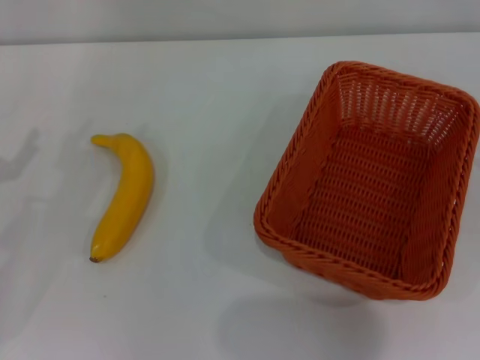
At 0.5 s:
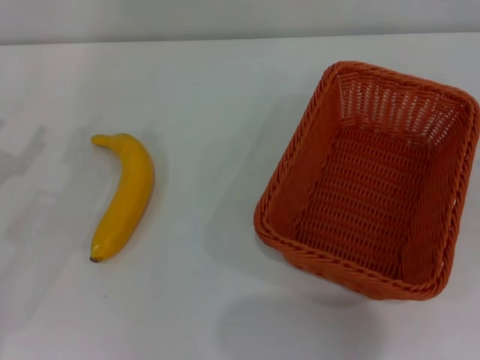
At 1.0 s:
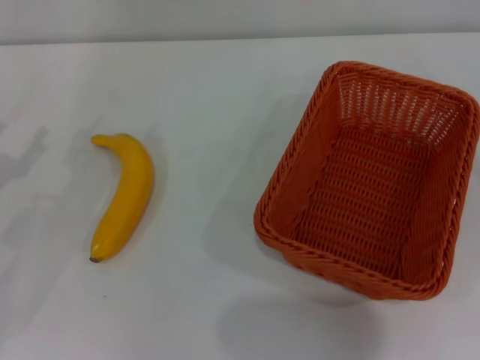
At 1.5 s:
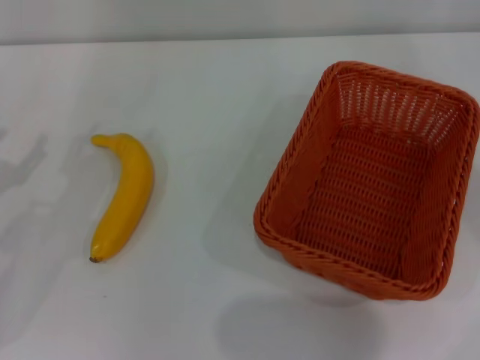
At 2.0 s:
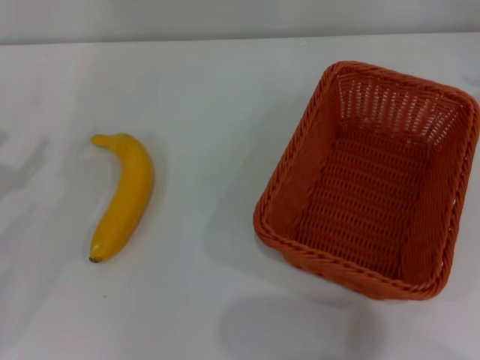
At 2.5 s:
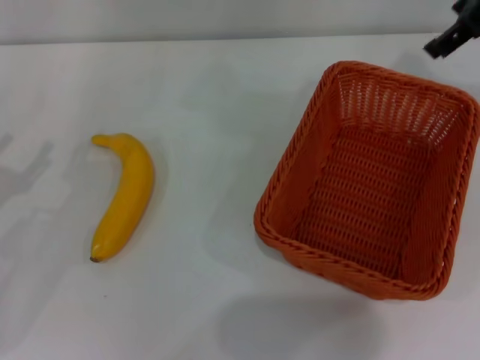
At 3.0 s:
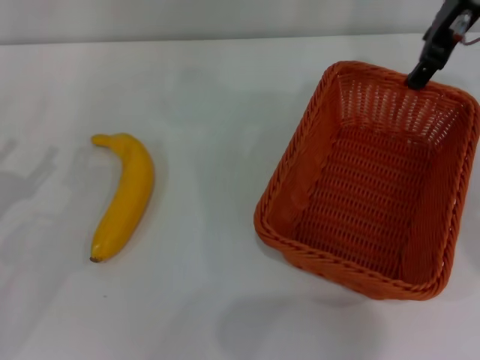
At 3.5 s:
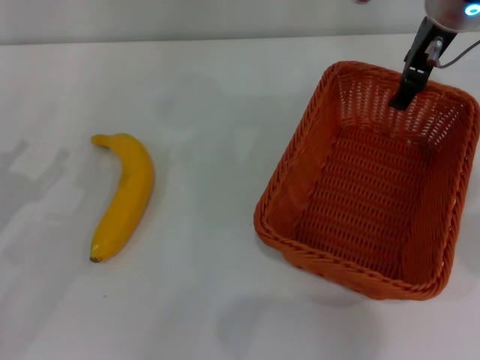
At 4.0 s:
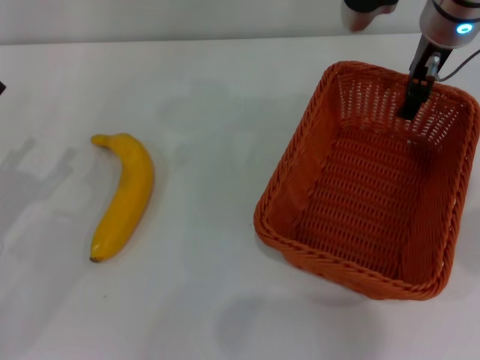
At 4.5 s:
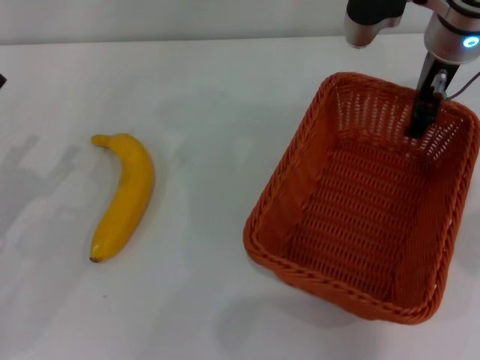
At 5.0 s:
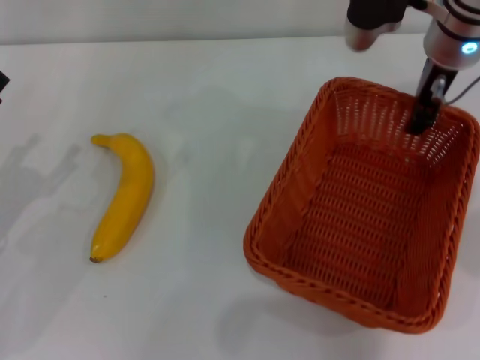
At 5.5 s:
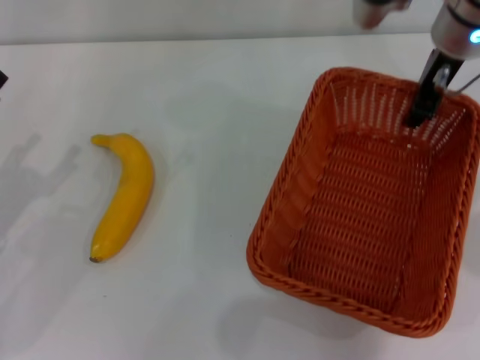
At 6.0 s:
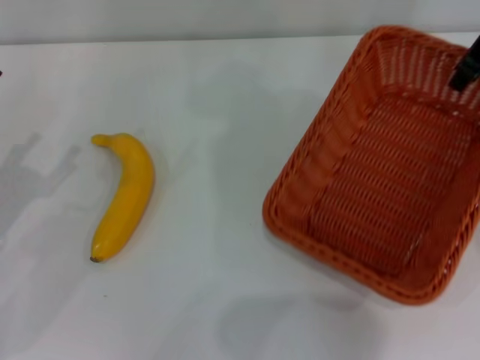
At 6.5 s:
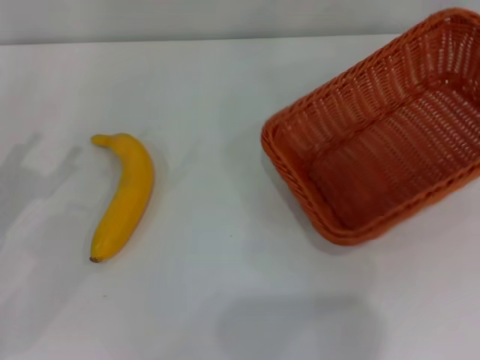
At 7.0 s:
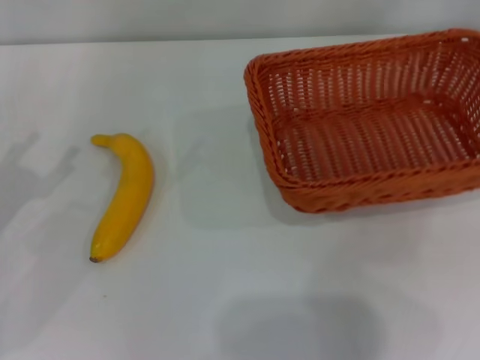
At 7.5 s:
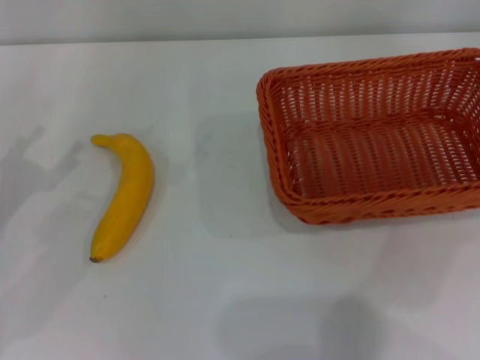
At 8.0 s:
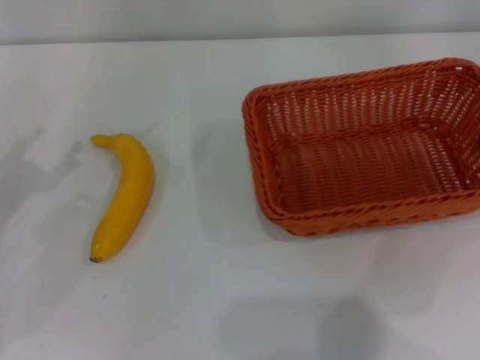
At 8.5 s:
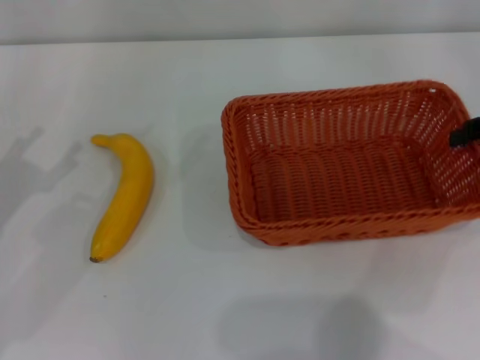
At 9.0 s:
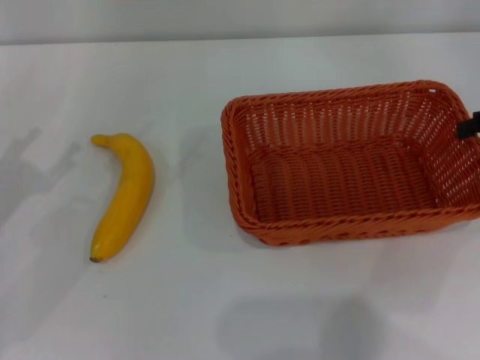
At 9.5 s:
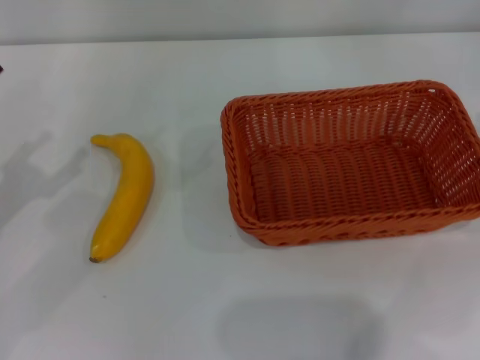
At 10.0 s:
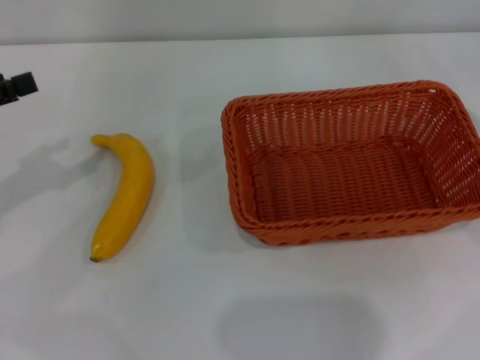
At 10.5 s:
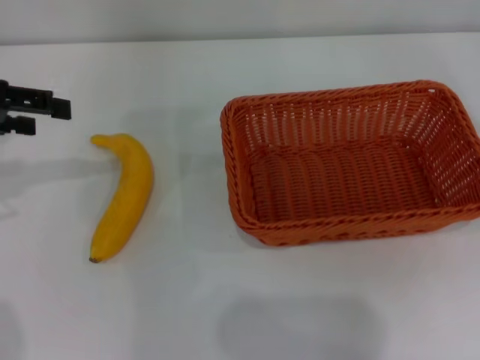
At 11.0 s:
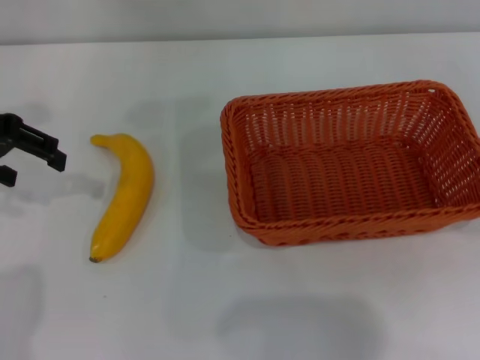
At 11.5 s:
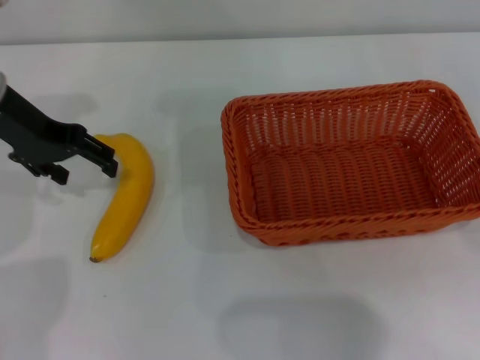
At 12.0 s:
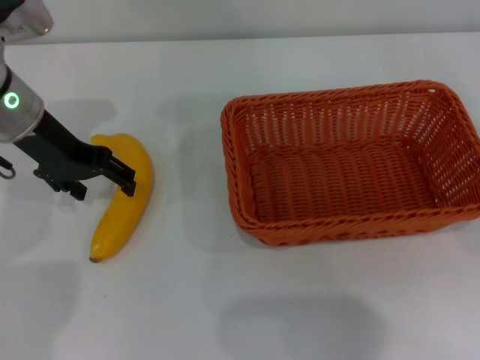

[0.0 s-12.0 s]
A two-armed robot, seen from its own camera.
Step, 0.0 to 6.0 s: Pick up the light basket with the right gripper.
Step, 6.5 to 9.5 s: Place the light basket in the center of view with the right gripper.
2.0 to 4.0 s: The right gripper travels to the left, forward and downward by approximately 25 cm.
4.0 to 6.0 s: The right gripper moves to the right, some 5 cm, and closes up.
6.0 to 8.0 s: The right gripper moves to the right, backward and downward, approximately 20 cm.
8.0 to 10.0 s: The right gripper goes roughly 5 cm to the right, and opens. The left gripper moves upward, about 5 cm.
10.0 to 12.0 s: The left gripper moves to the right and forward, approximately 15 cm.

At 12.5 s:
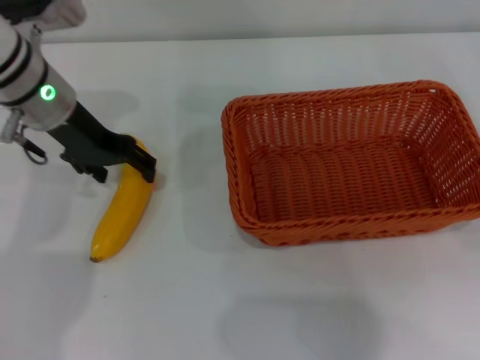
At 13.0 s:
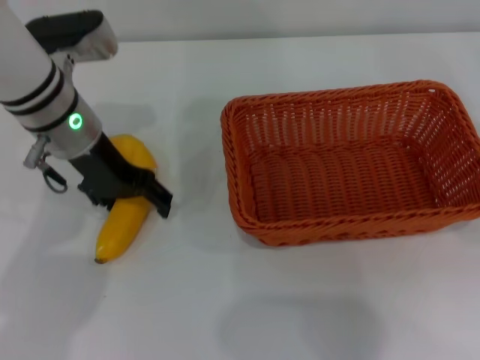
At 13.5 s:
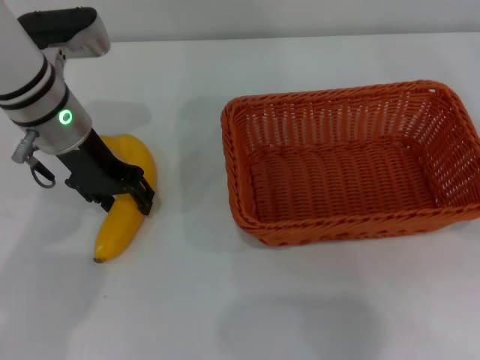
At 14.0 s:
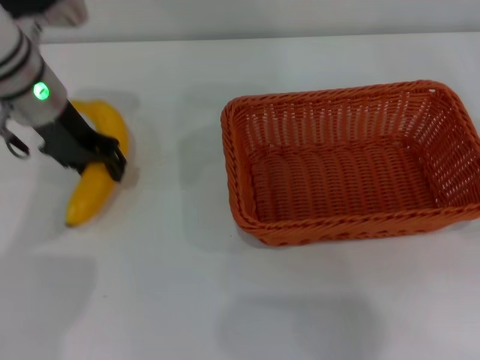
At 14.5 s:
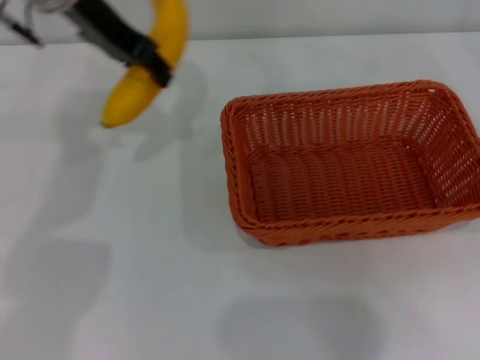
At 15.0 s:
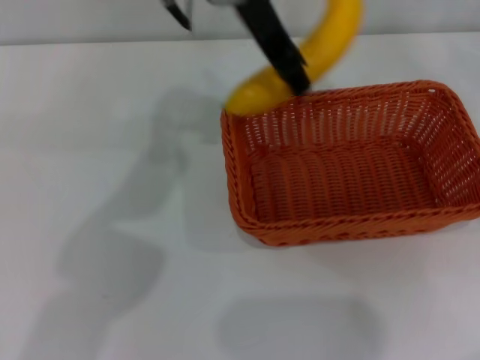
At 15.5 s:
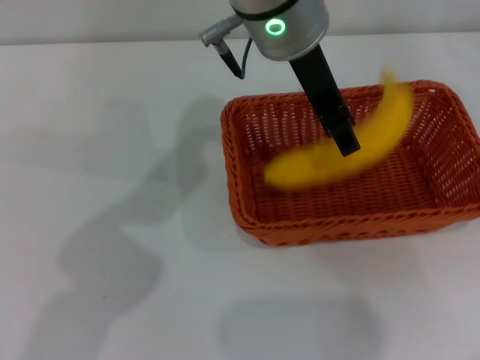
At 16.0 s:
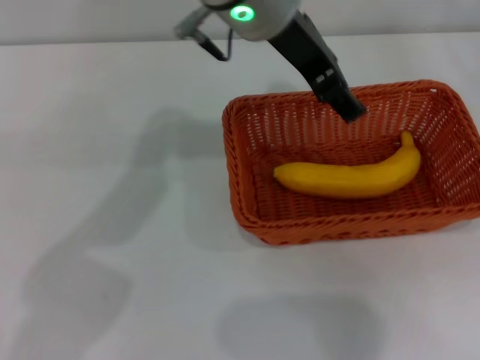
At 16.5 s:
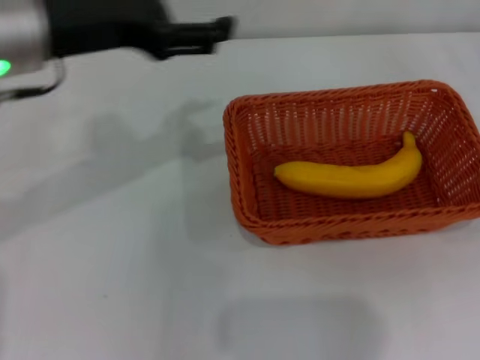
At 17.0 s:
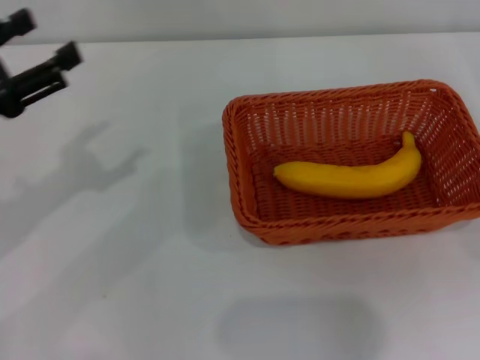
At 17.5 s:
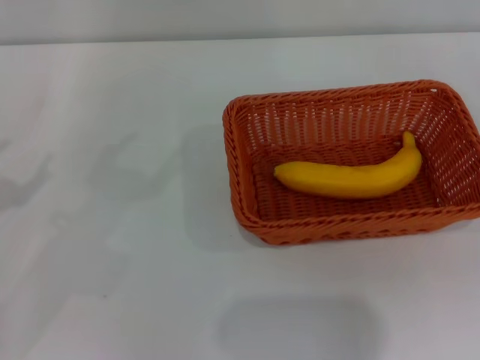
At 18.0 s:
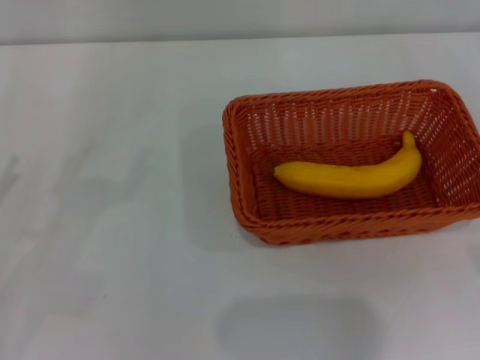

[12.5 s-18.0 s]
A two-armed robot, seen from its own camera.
Step, 14.5 to 16.0 s: Place the banana into the light basket with the left gripper.
12.5 to 14.5 s: The left gripper goes roughly 10 cm upward, and closes.
14.5 to 16.0 s: The left gripper heads to the right, covering some 15 cm, and opens up.
16.0 to 18.0 s: The left gripper heads to the left, downward and backward, covering about 40 cm, while the right gripper goes approximately 5 cm downward.

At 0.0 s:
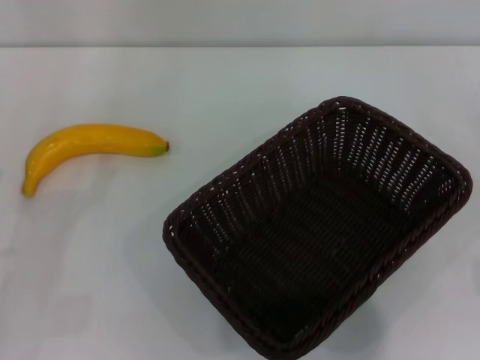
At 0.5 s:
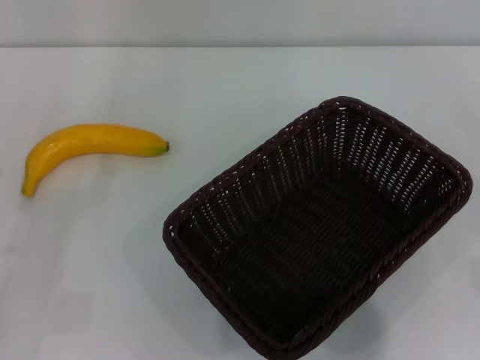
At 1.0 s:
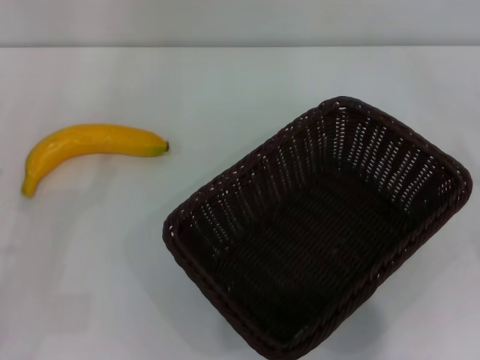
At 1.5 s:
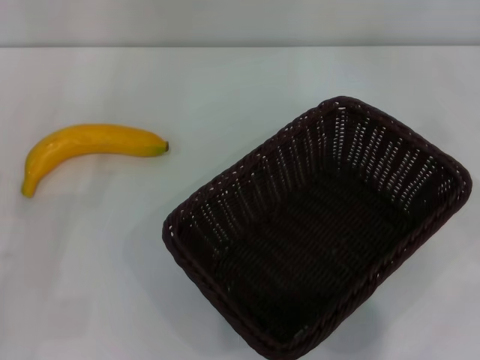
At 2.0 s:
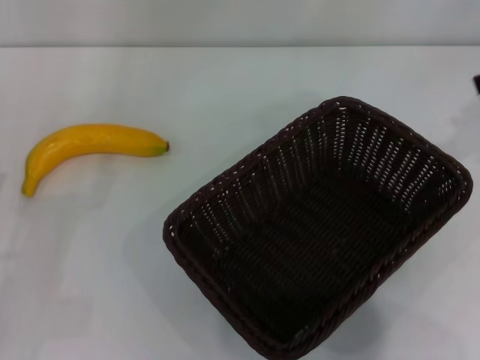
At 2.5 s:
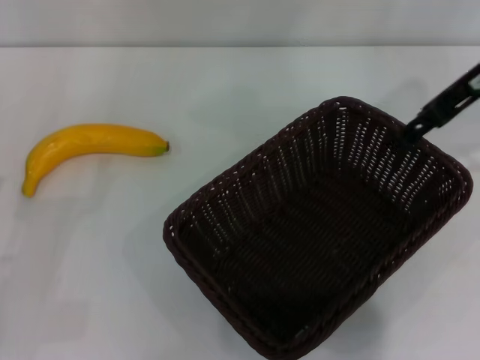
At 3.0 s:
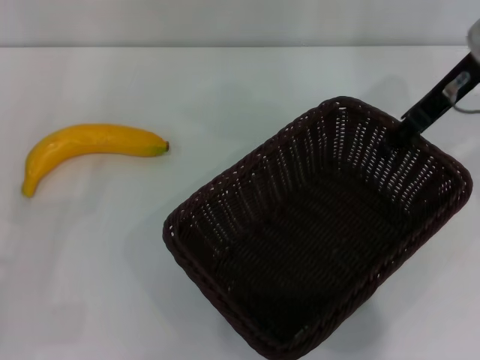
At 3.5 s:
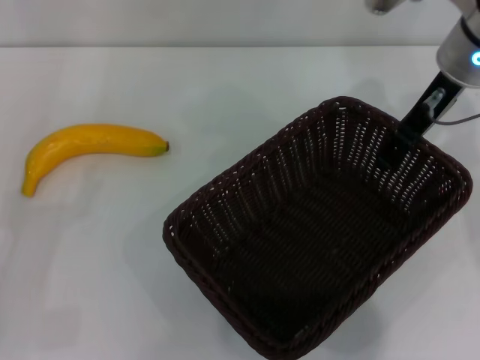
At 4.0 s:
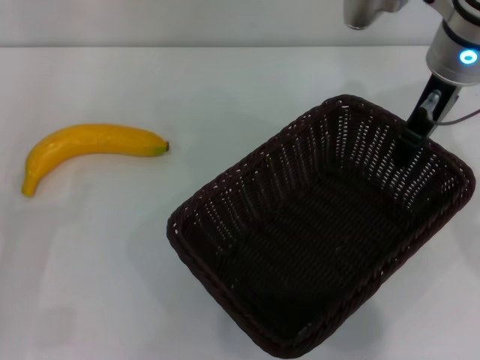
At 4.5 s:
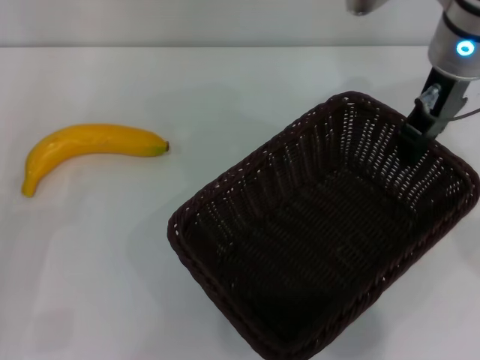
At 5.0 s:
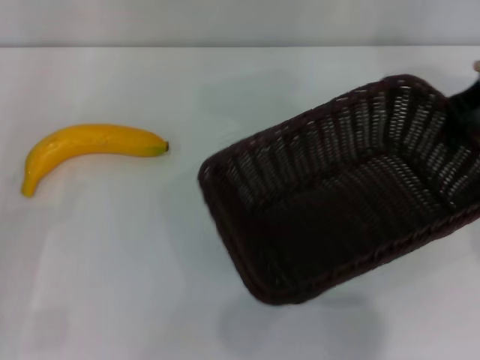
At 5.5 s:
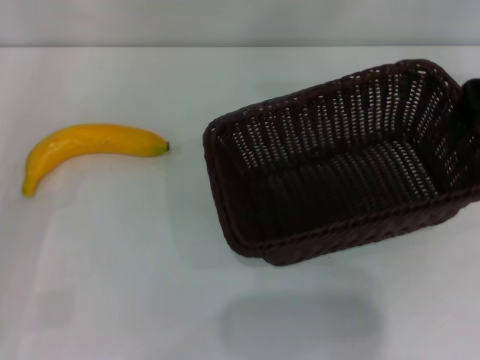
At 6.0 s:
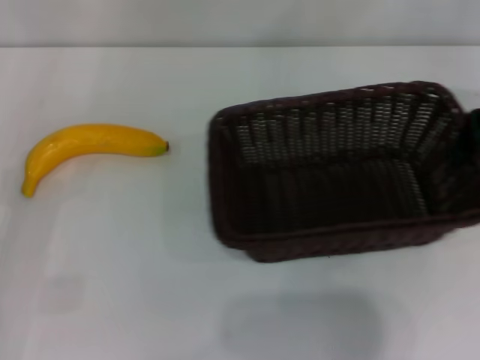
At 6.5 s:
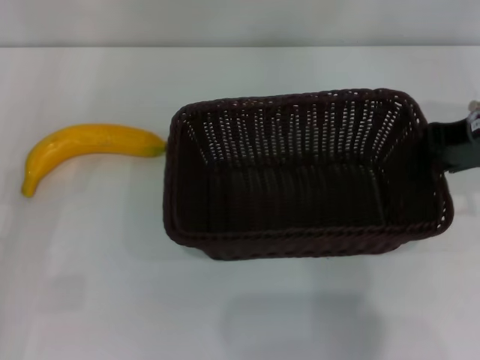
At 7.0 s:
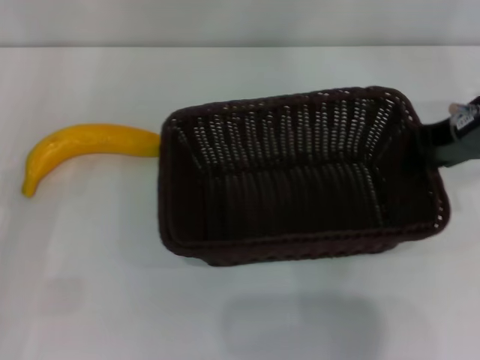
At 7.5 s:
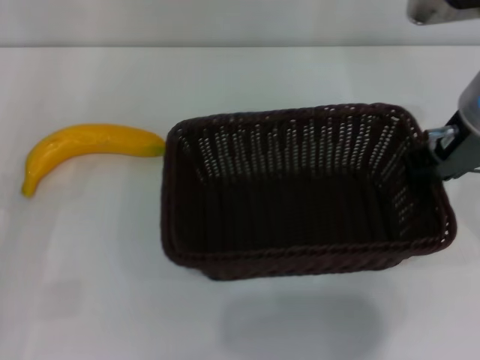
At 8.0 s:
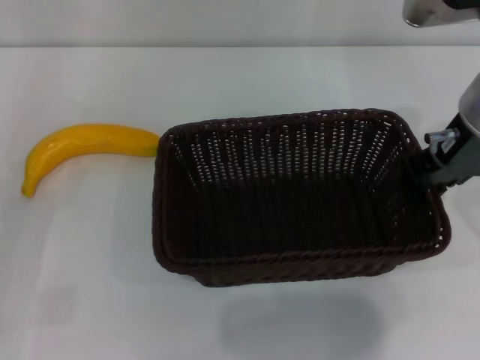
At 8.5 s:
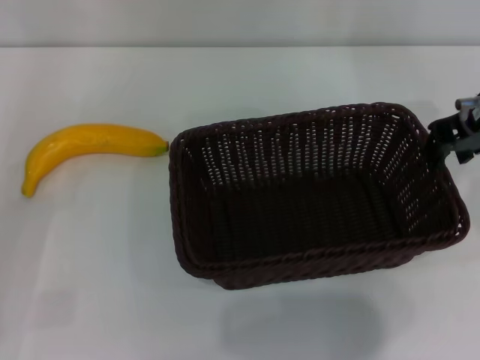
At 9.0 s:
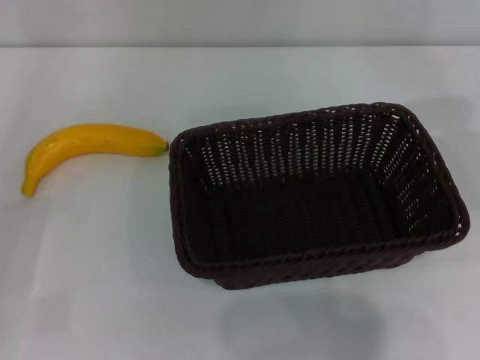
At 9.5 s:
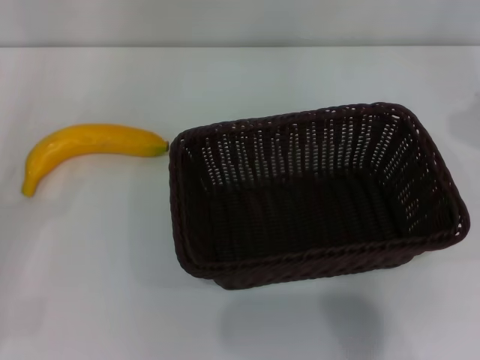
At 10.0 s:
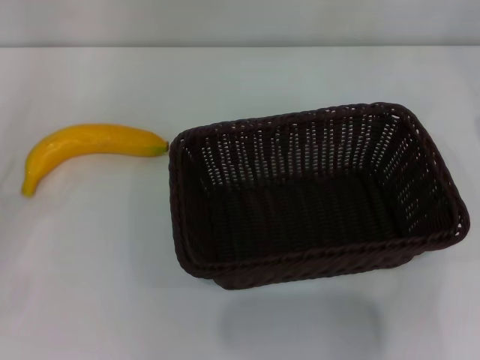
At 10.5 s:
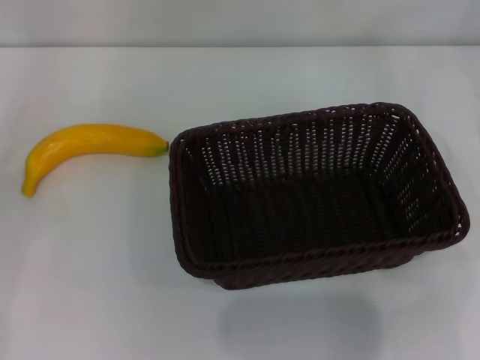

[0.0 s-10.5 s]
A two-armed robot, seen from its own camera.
Step, 0.0 to 4.5 s: Pick up the dark basket with the right gripper.
Step, 5.0 to 8.5 s: Place the dark basket in the center of view with the right gripper.
2.0 to 4.0 s: The right gripper goes approximately 15 cm to the left.
4.0 to 6.5 s: The right gripper travels to the right and backward by some 10 cm, and closes.
6.5 to 8.5 s: The right gripper is displaced to the left by roughly 5 cm.
8.5 to 10.5 s: The right gripper shifts roughly 15 cm to the right, and opens its fingers.
